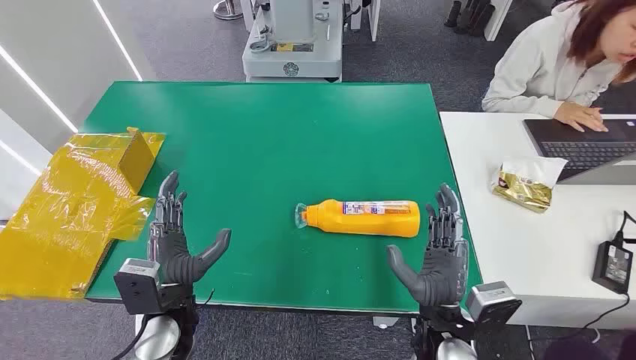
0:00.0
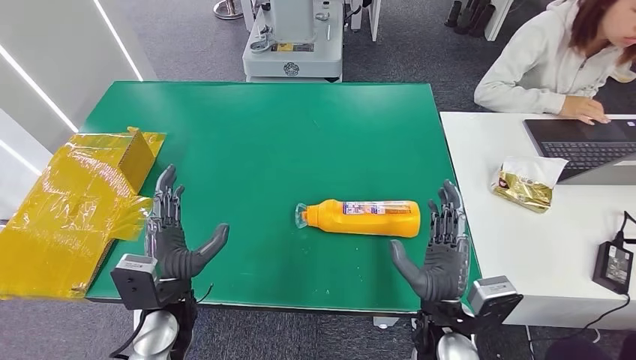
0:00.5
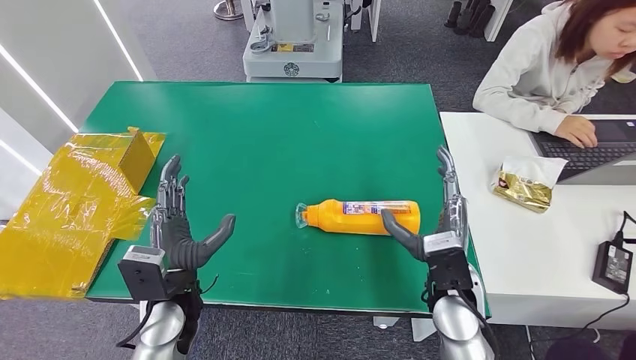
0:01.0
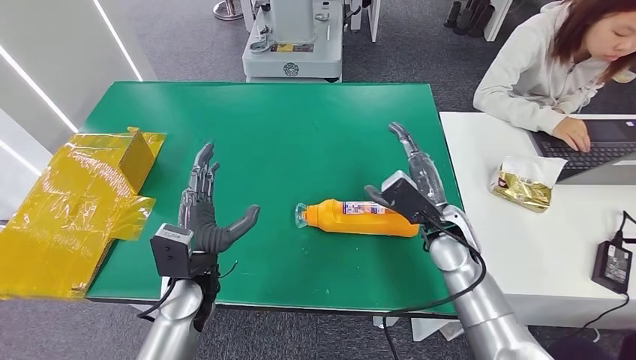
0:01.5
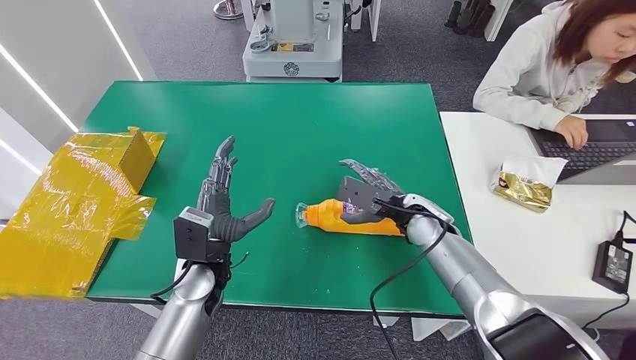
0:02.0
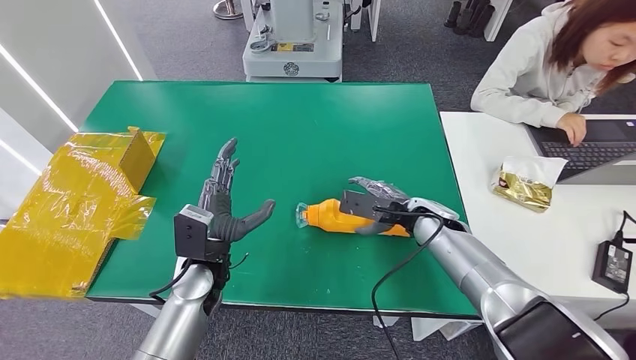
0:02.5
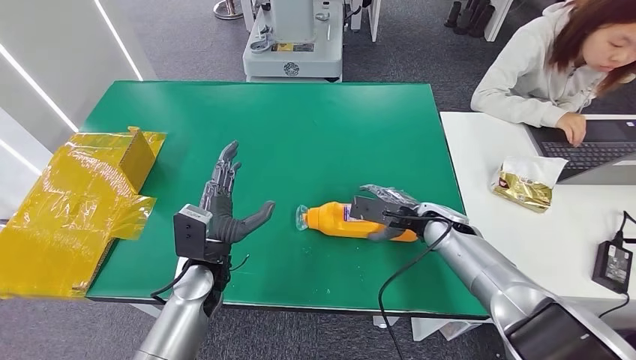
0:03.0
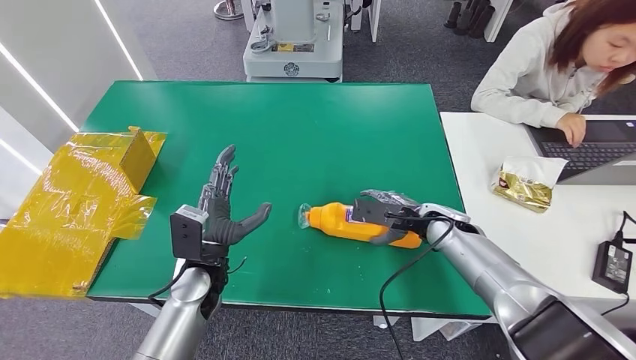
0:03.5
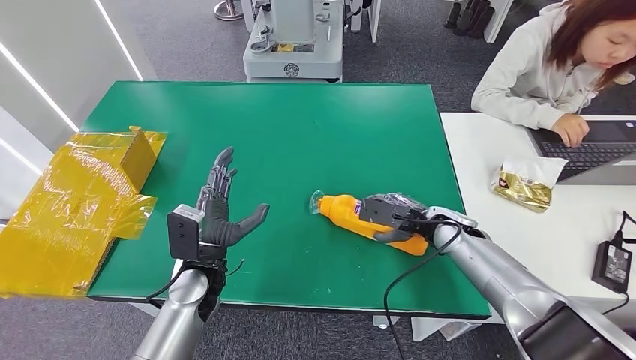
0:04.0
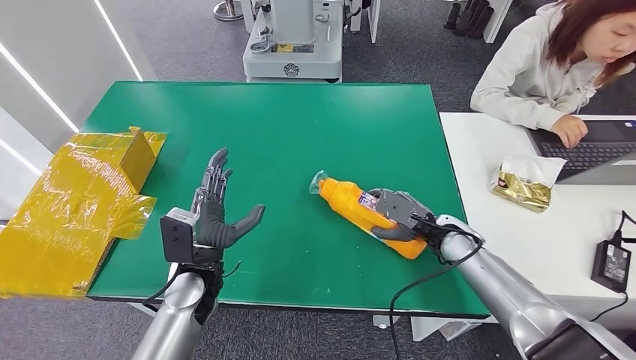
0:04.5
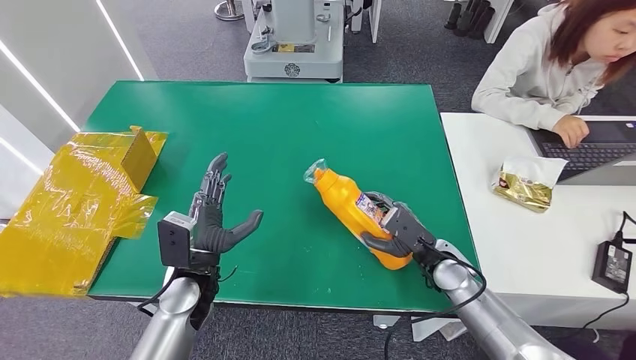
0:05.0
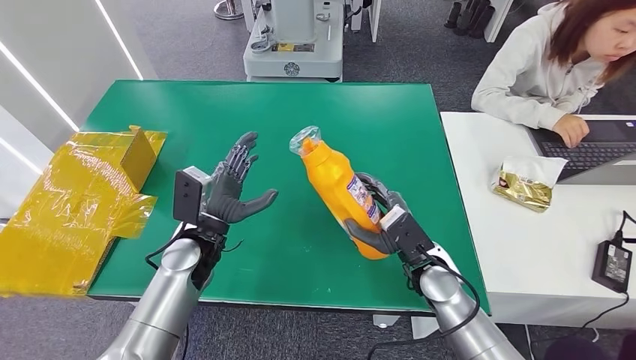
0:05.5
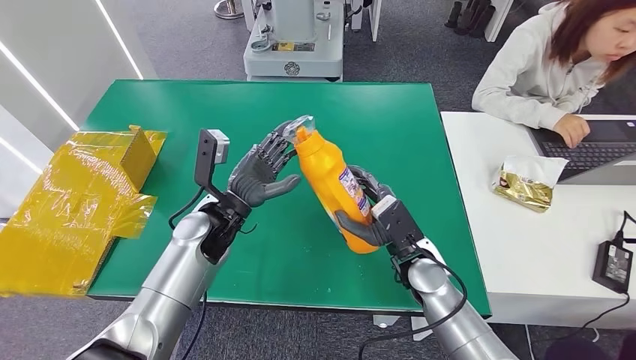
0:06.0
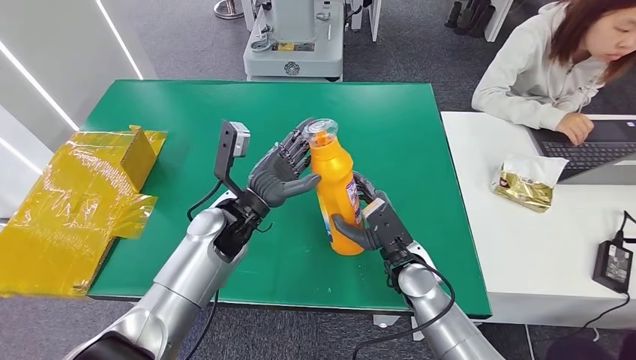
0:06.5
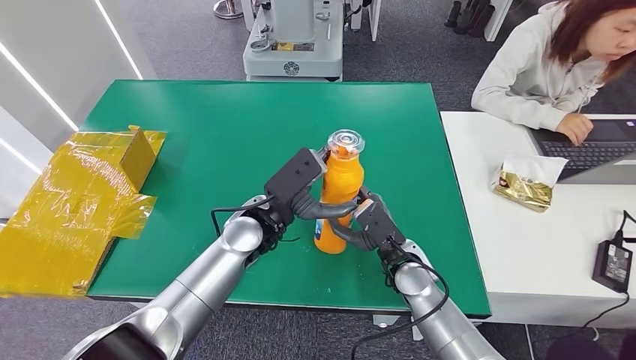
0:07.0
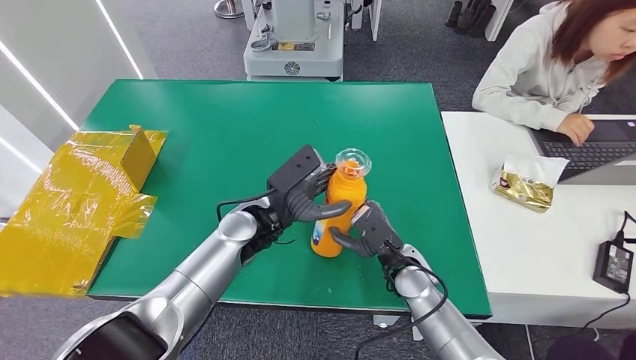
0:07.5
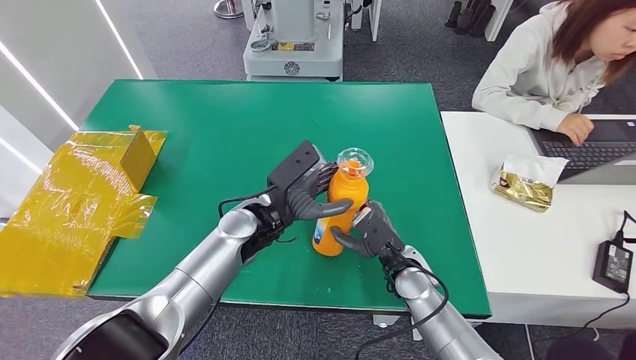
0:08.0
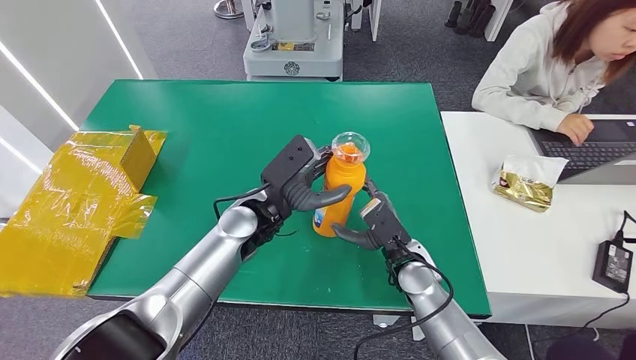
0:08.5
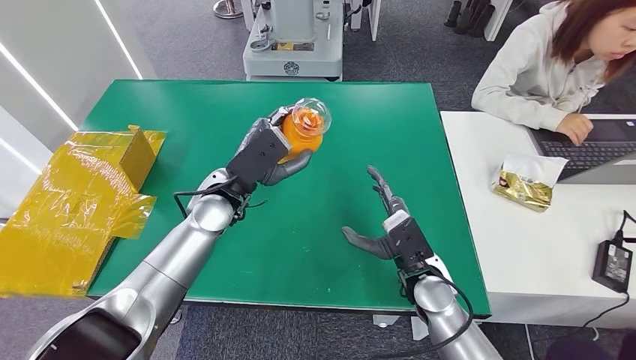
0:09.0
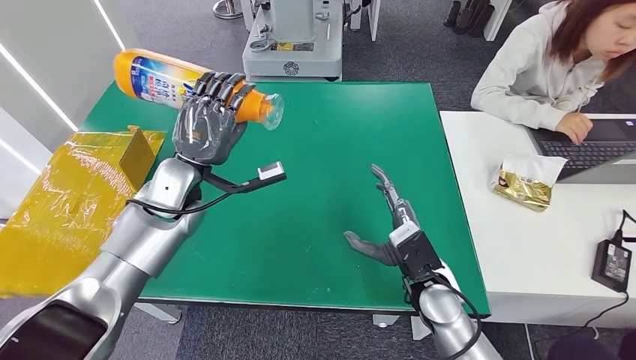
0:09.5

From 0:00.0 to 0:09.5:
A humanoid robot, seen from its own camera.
Step, from 0:00.0 to 0:05.5: Pick up the bottle from the table.
From 0:02.0 to 0:04.0: The right hand travels to the right by some 5 cm.
From 0:04.0 to 0:05.5: The right hand travels backward and to the left by about 10 cm. Meanwhile the left hand moves roughly 5 cm.
From 0:05.5 to 0:07.5: The left hand goes approximately 10 cm to the right.

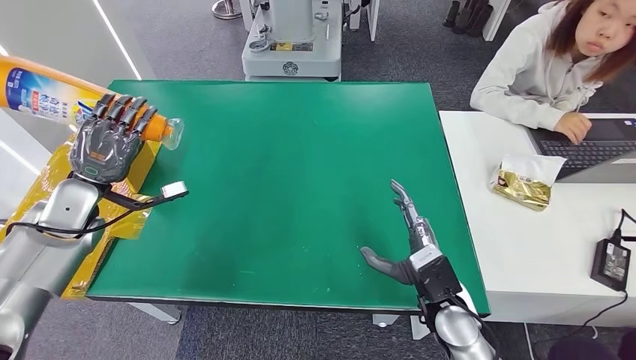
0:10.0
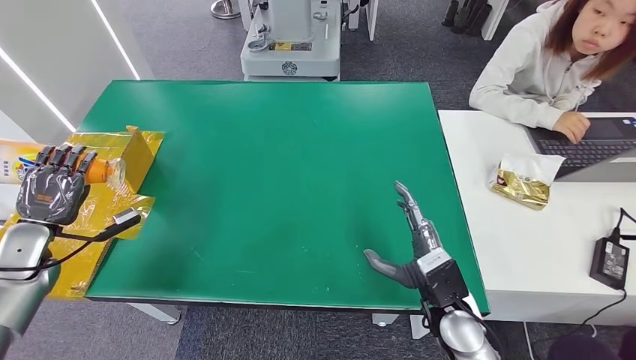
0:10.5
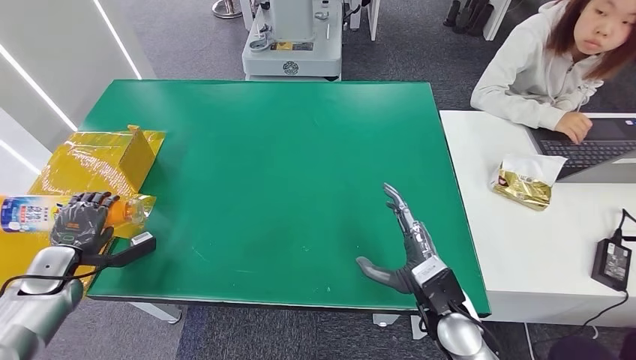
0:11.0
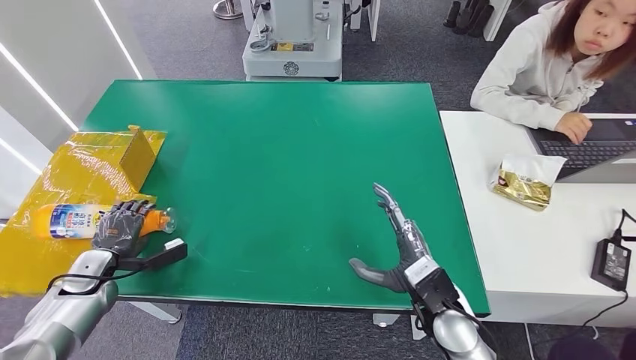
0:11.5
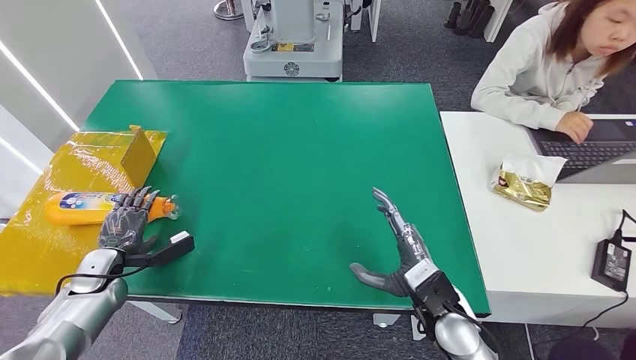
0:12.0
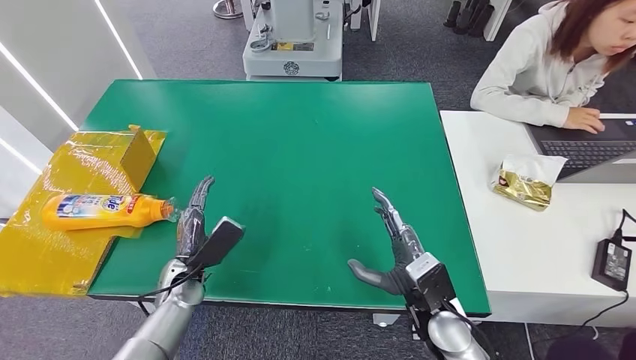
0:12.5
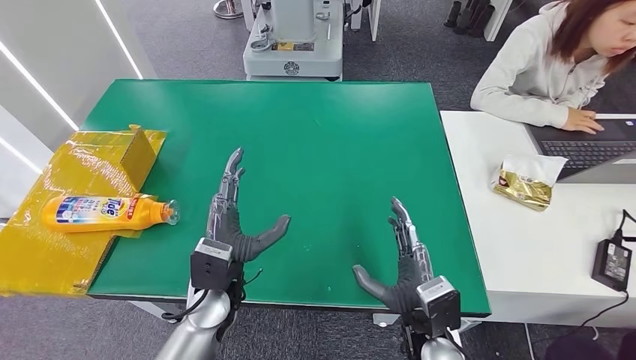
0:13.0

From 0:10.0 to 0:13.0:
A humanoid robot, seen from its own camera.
Step, from 0:10.0 to 0:13.0: Turn the bottle to the front side.
From 0:10.0 to 0:11.5: The left hand shifts roughly 20 cm downward and backward.
From 0:11.5 to 0:13.0: The left hand goes some 30 cm to the right. The right hand changes place by some 5 cm.

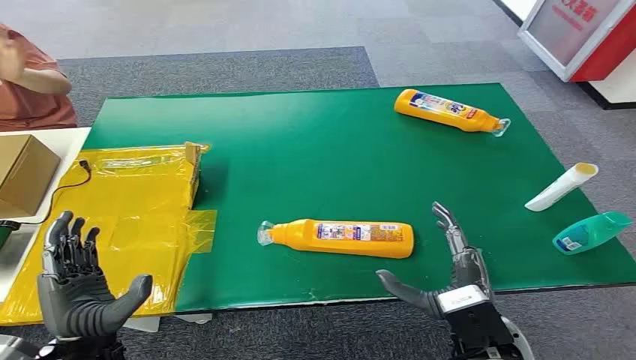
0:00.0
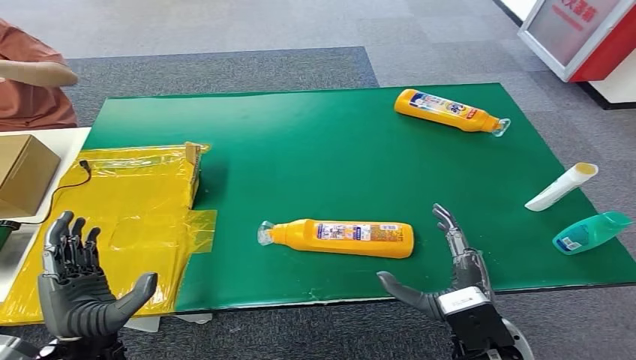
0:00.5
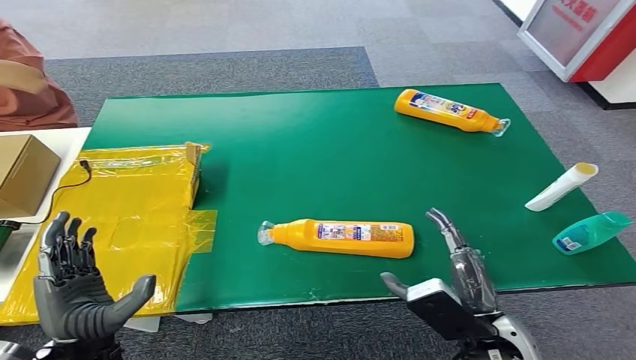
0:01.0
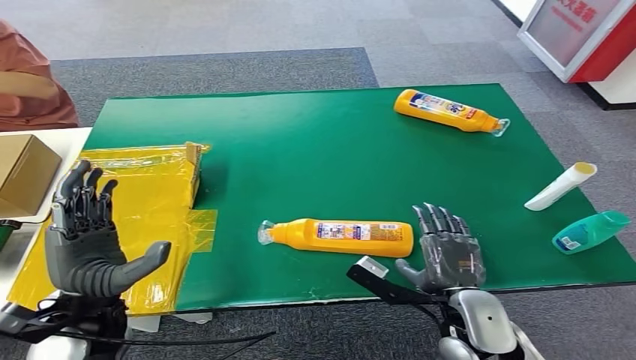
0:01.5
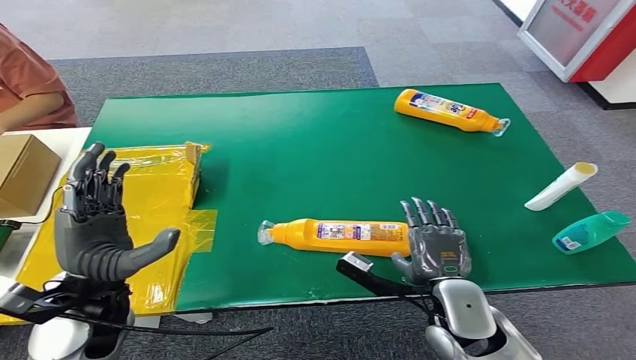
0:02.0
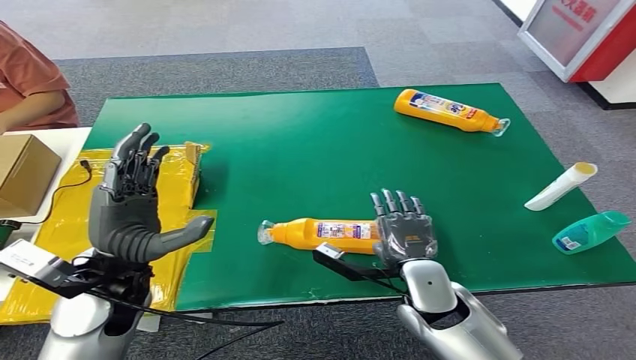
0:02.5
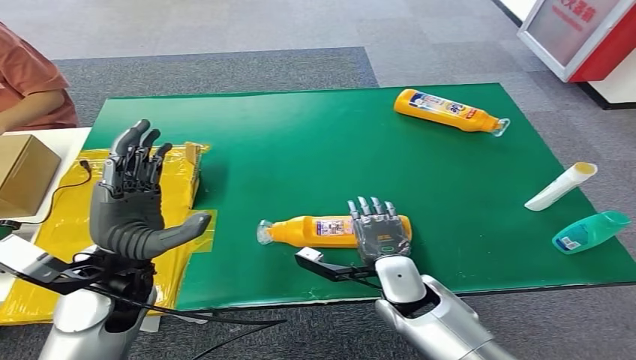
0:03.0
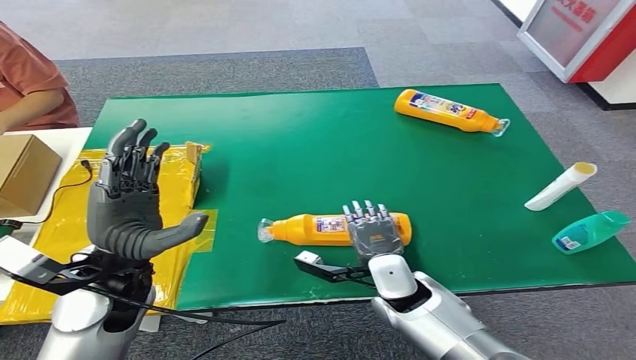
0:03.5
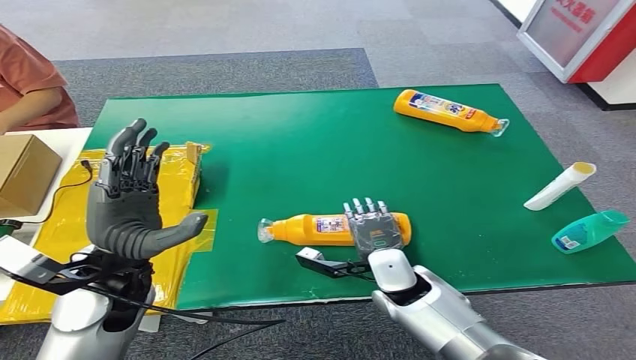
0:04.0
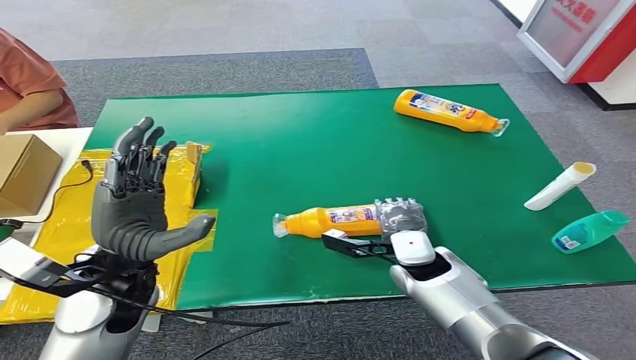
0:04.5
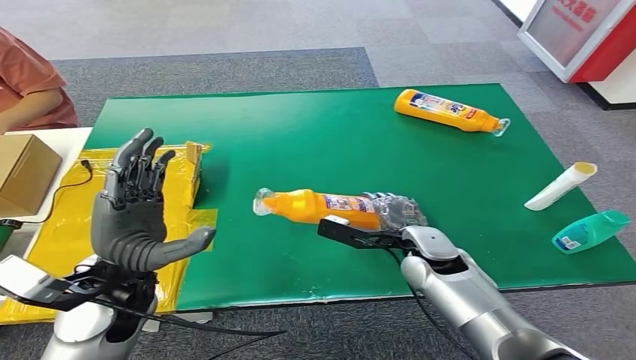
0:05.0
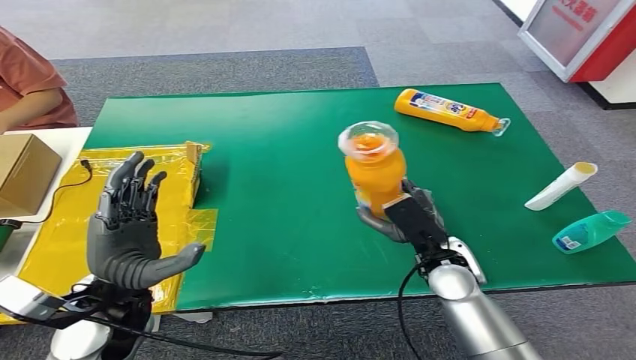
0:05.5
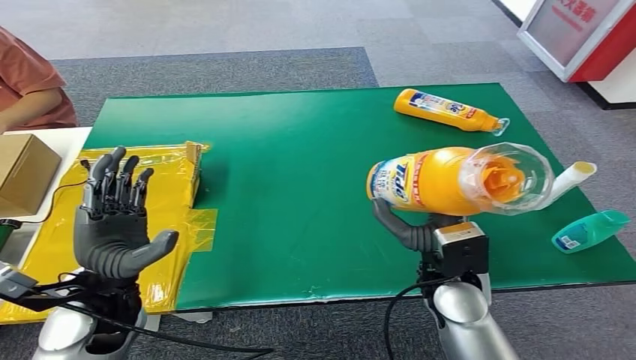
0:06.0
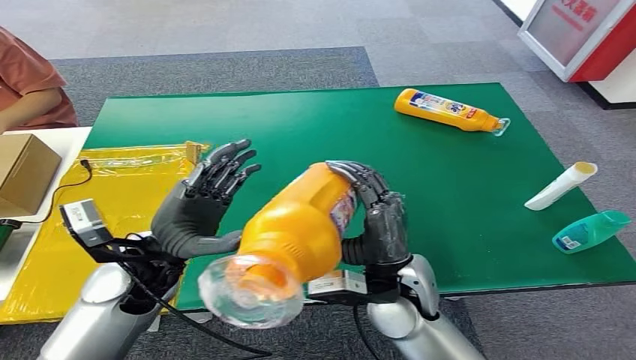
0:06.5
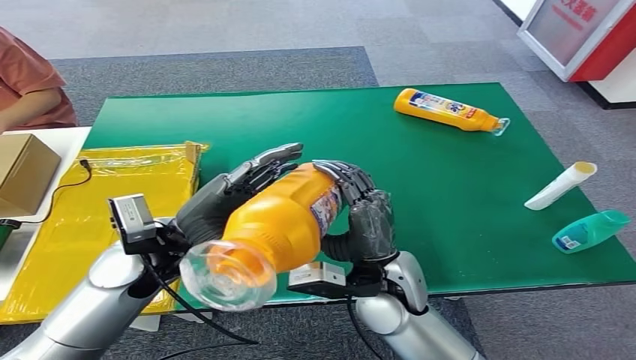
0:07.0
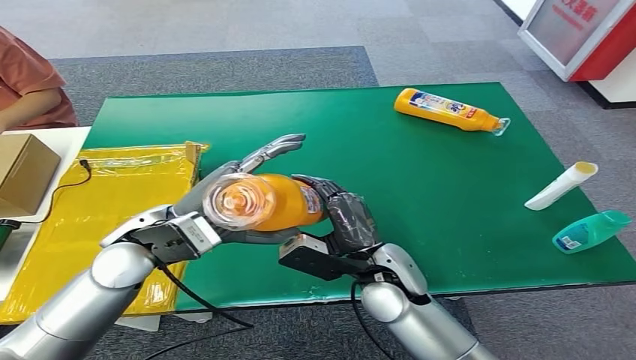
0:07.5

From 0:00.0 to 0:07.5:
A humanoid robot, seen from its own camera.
Step, from 0:00.0 to 0:05.5: Pick up the bottle from the table.
From 0:02.0 to 0:04.0: The right hand heads forward and to the left, covering some 10 cm.
